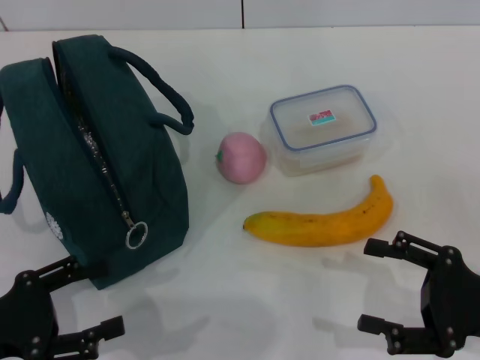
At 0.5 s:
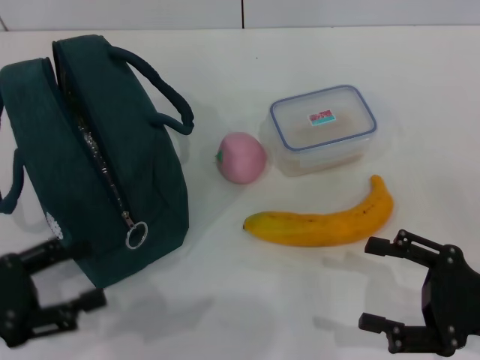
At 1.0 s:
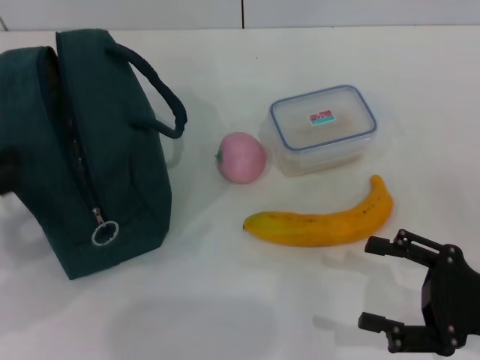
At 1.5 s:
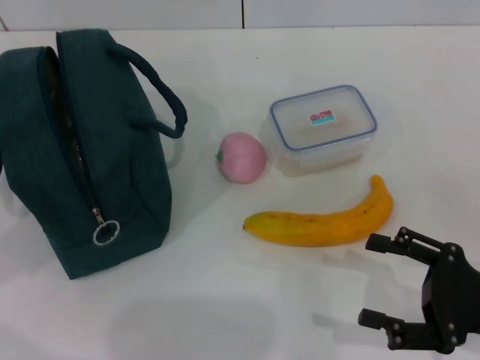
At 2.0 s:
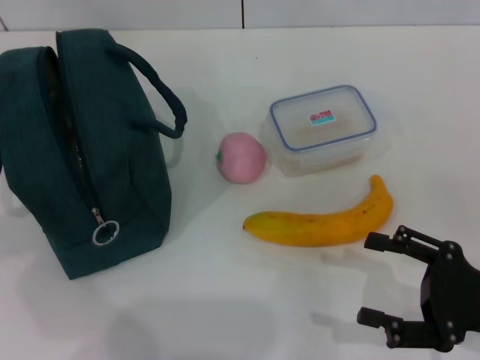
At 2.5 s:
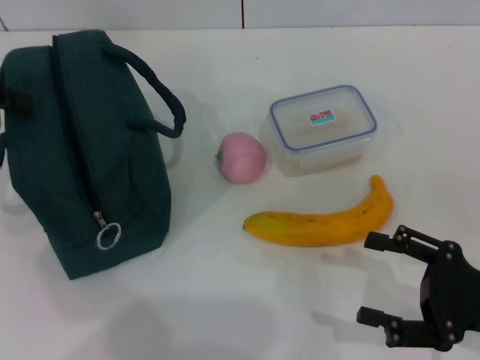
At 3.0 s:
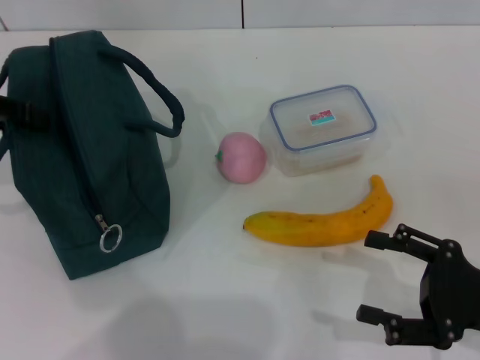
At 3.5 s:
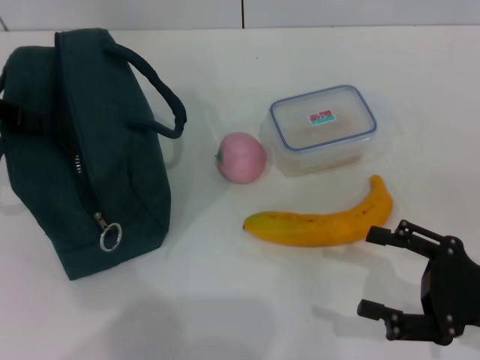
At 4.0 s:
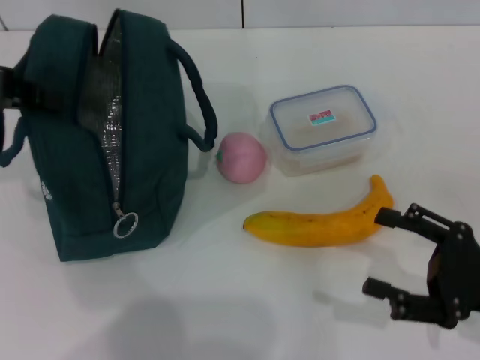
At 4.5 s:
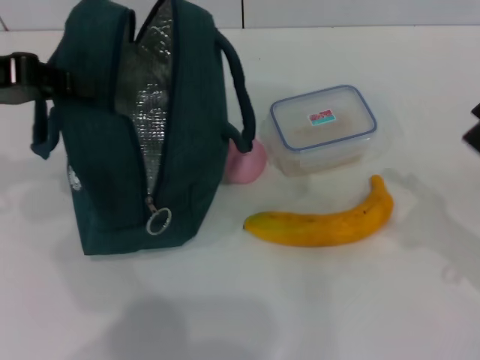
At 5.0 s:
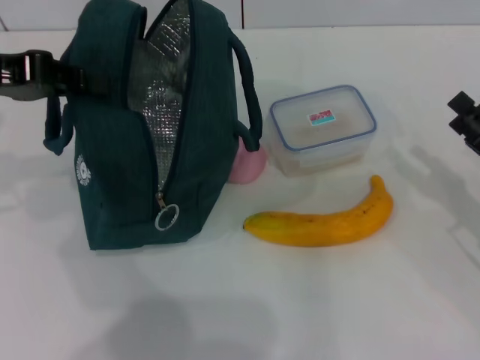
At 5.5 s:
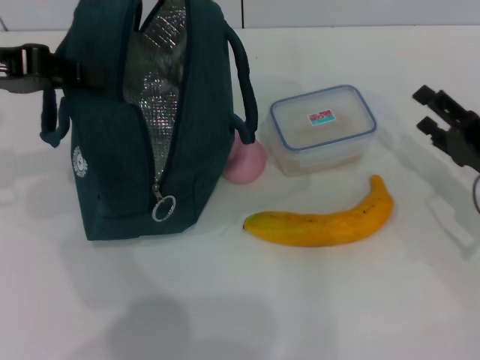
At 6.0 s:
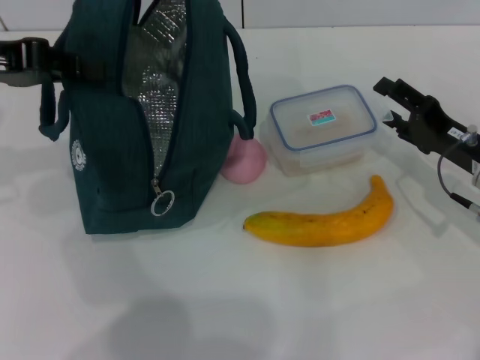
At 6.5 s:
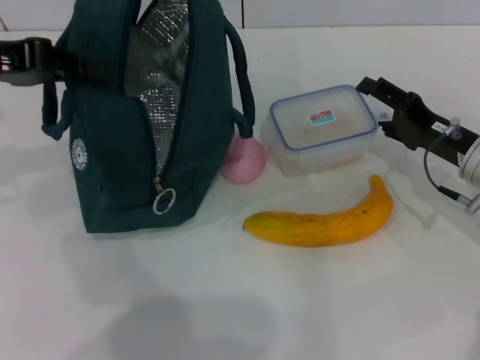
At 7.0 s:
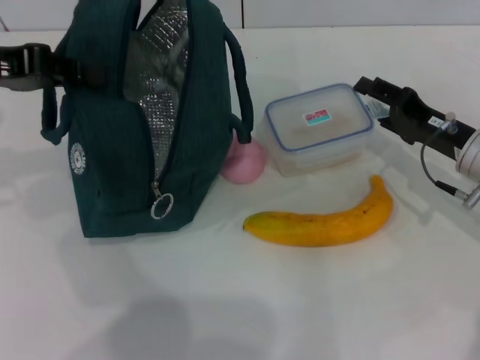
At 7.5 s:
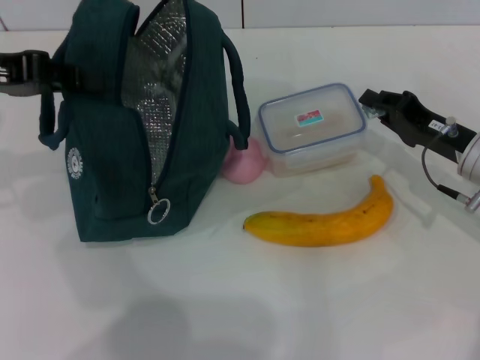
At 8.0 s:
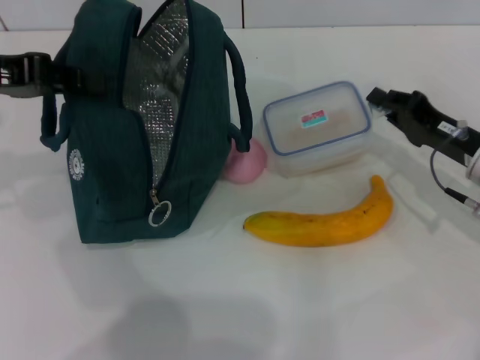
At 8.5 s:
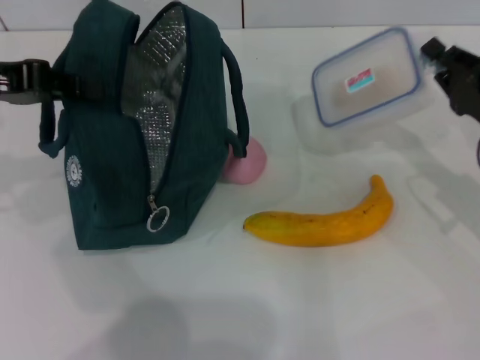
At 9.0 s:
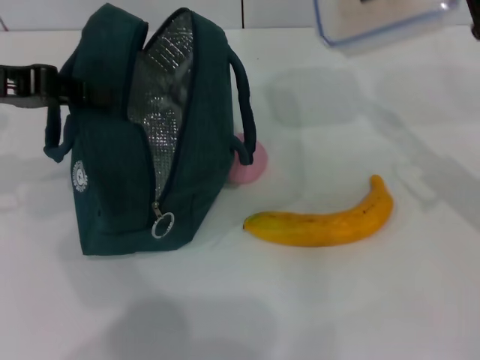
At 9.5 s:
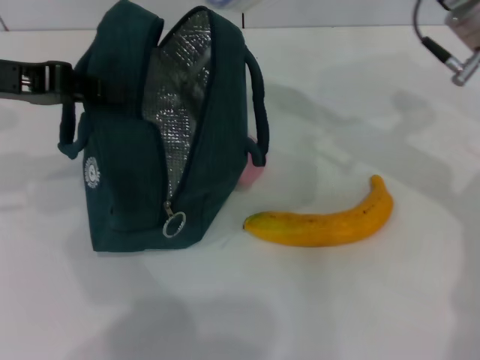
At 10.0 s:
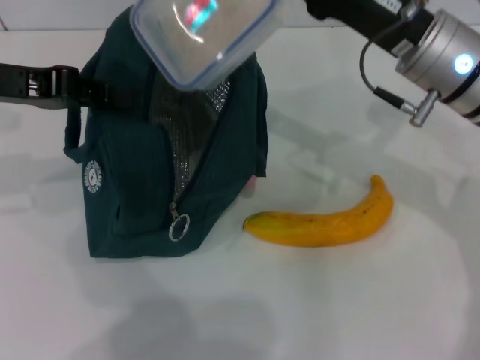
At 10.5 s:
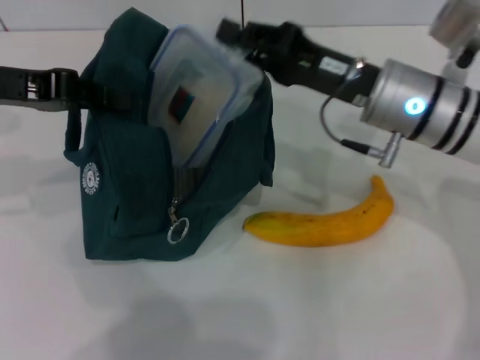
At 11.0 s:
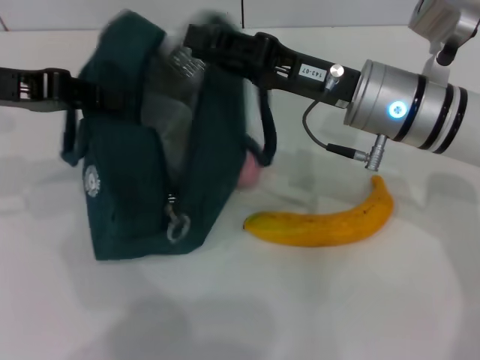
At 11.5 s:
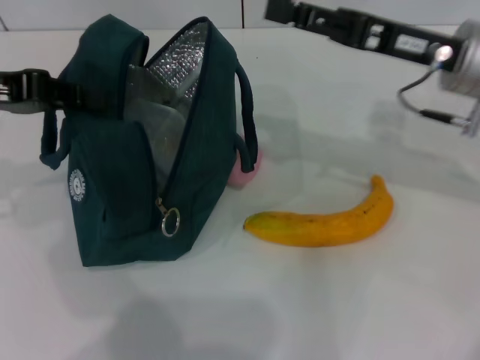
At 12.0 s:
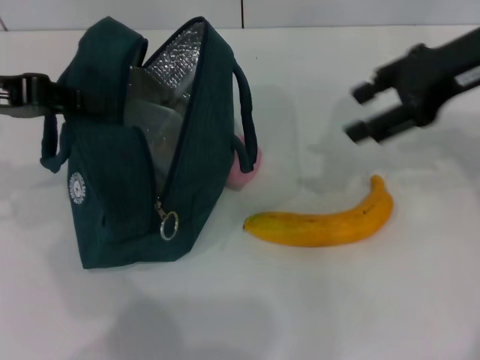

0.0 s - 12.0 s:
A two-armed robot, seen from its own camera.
Step, 0.0 s - 3.0 s: Hold the lunch bag with your left hand.
Step, 3.5 s - 7.5 s: Pick up the lunch box with your right hand.
Step, 8.0 s - 11.0 s: Place the lunch box into the lunch bag with your right hand.
0.0 s - 2.0 s: The left gripper is displaced upward and forward by approximately 25 cm.
2.0 s - 4.0 s: The left gripper travels to the right by about 5 cm, and closes.
4.0 s - 6.0 s: The right gripper travels forward by approximately 15 cm.
6.0 s - 8.0 s: The right gripper closes its fingers.
8.0 s - 10.0 s: The right gripper shifts about 15 cm upward and to the left.
10.0 s - 12.0 s: The right gripper shifts roughly 10 cm upward and to the right, and opens up.

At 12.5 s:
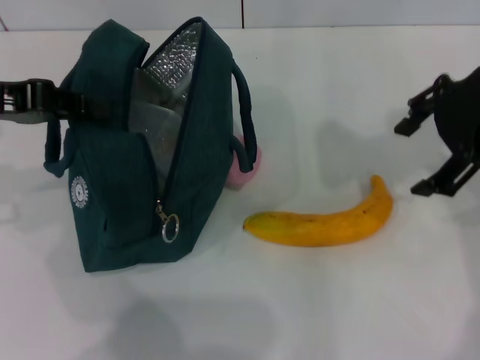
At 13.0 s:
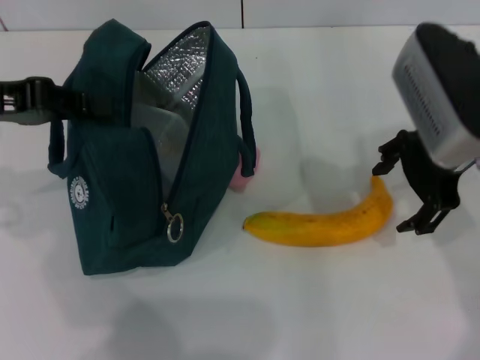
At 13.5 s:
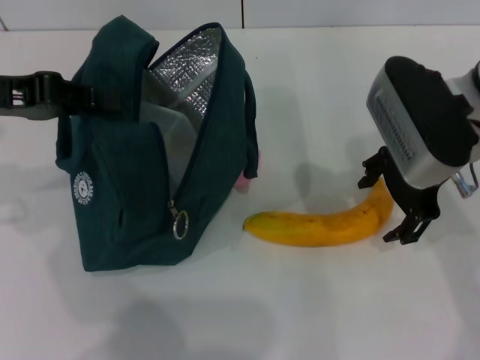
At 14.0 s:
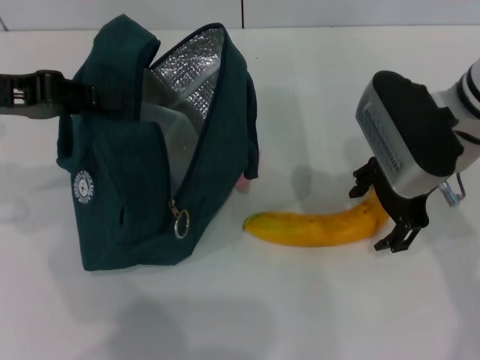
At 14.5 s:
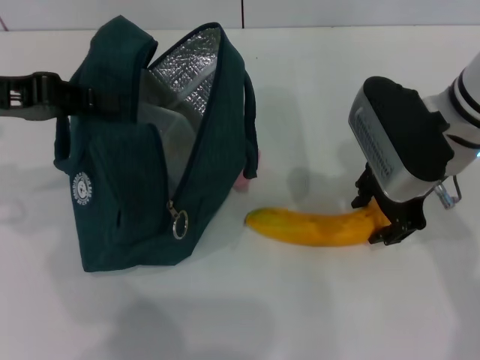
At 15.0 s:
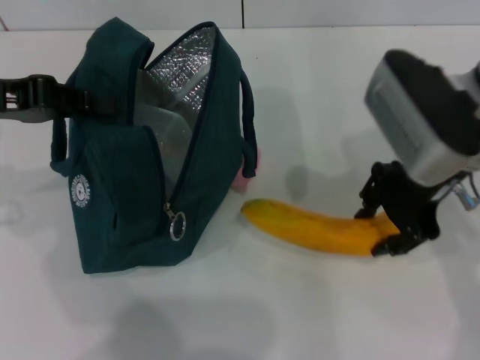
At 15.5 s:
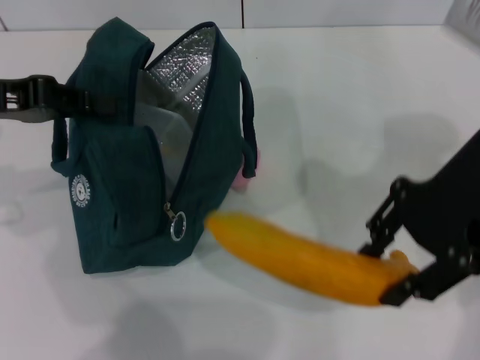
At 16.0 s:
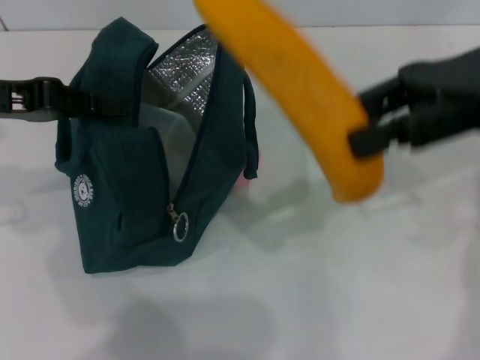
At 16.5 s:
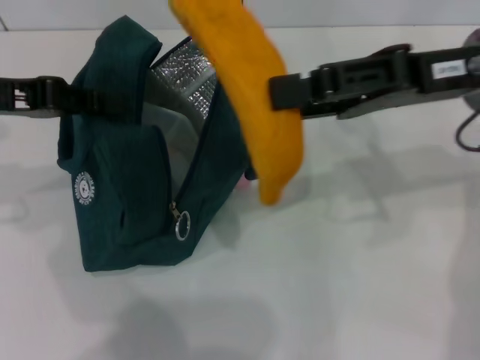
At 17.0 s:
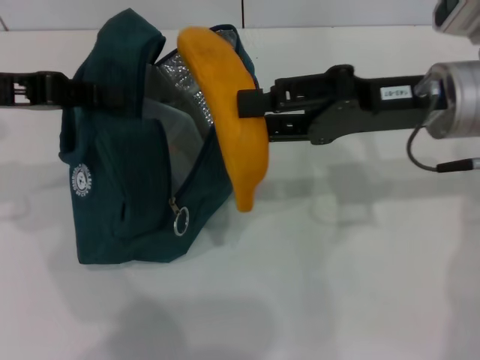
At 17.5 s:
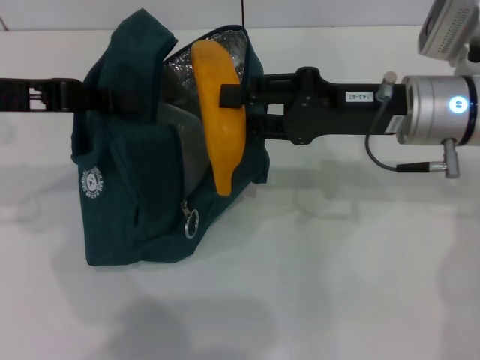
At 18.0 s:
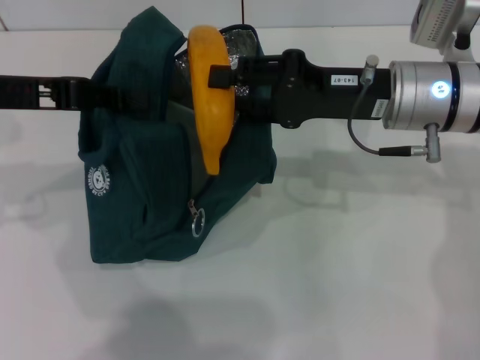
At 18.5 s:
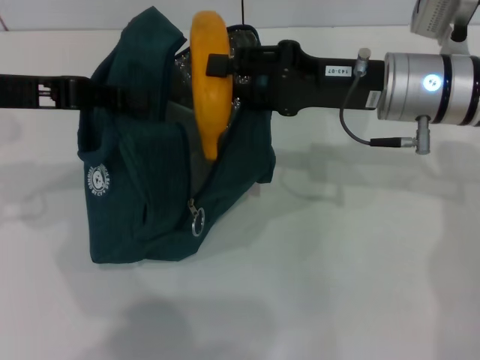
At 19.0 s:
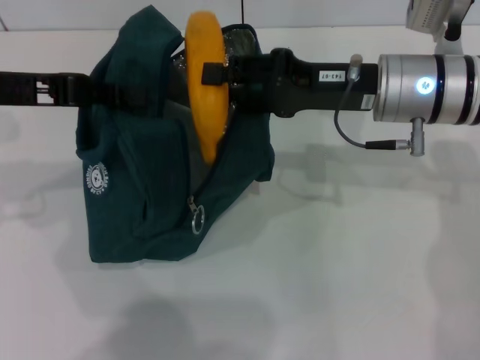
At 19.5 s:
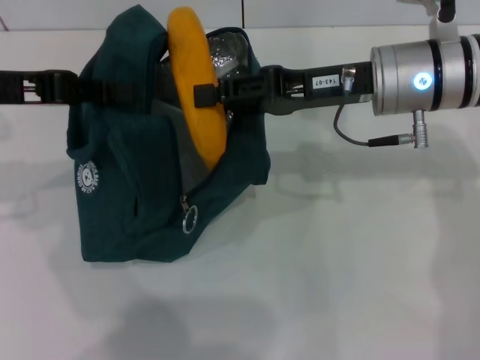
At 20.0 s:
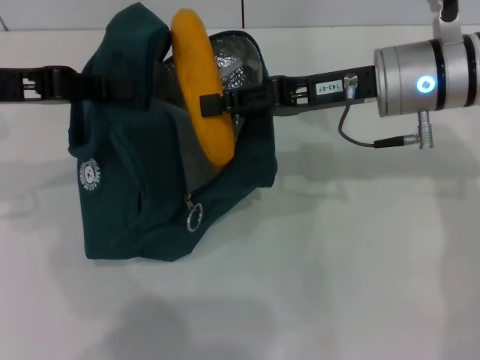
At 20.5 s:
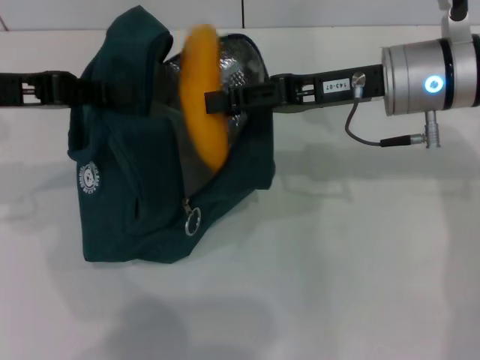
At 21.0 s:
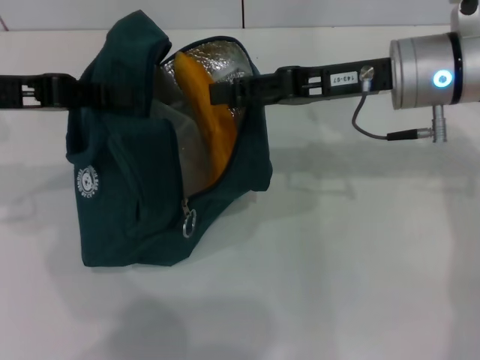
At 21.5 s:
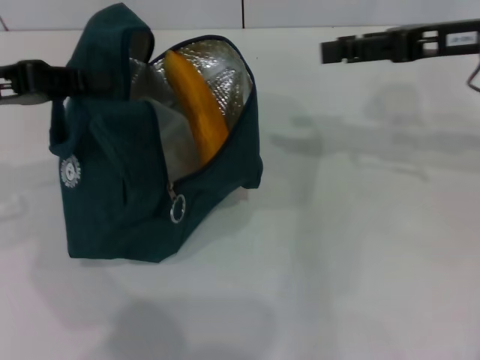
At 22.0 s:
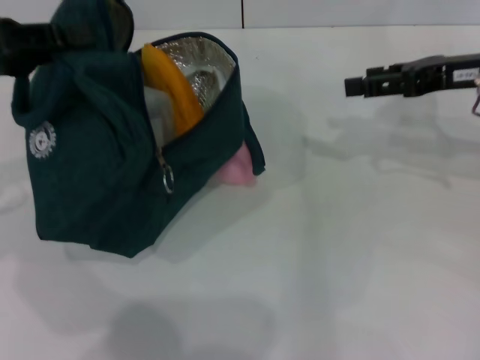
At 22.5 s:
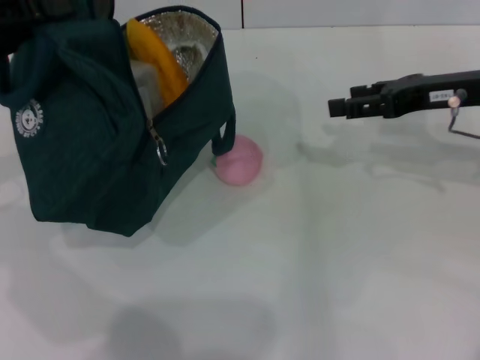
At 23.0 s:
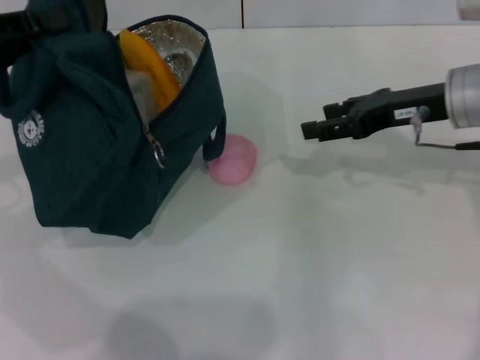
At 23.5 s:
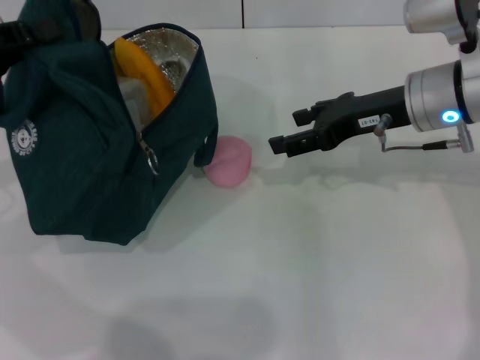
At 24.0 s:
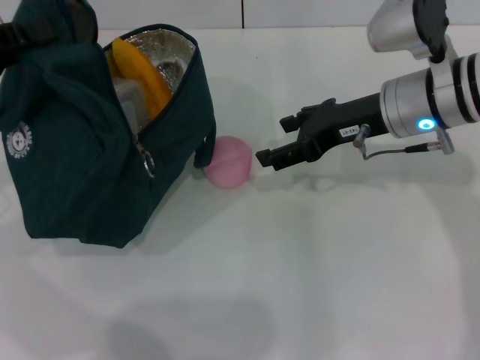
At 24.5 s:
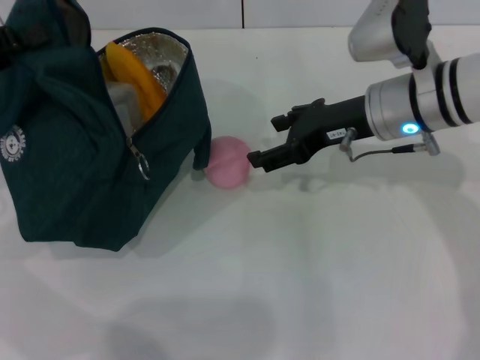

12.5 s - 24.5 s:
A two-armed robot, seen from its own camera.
Step, 12.5 s - 14.5 s: Take the banana with your right hand.
Step, 15.0 s - 20.5 s: Put the banana into the lunch bag with your right hand.
12.5 s - 14.5 s: The right gripper travels downward and to the left by about 10 cm.
14.5 s - 16.5 s: The right gripper travels upward by approximately 5 cm.
16.5 s - 18.5 s: The right gripper goes approximately 5 cm downward.
20.5 s - 22.5 s: The right gripper travels to the right by approximately 10 cm.
22.5 s - 24.5 s: The right gripper is displaced to the left by approximately 10 cm.

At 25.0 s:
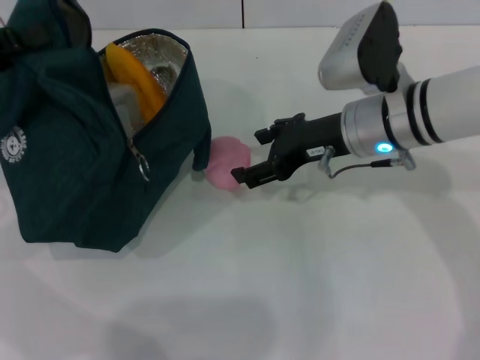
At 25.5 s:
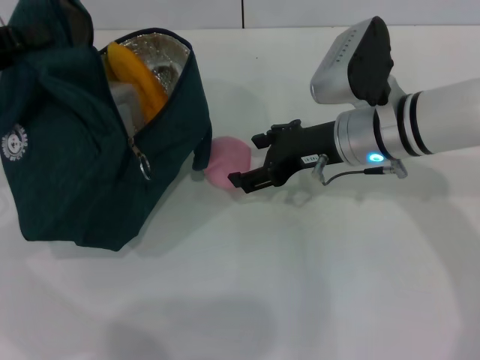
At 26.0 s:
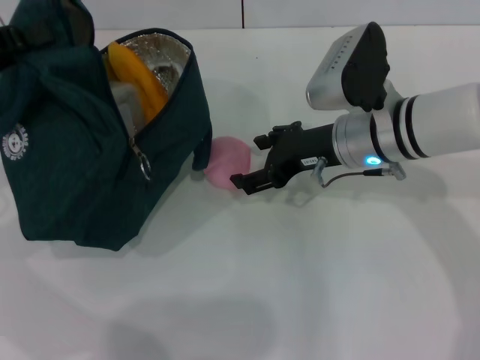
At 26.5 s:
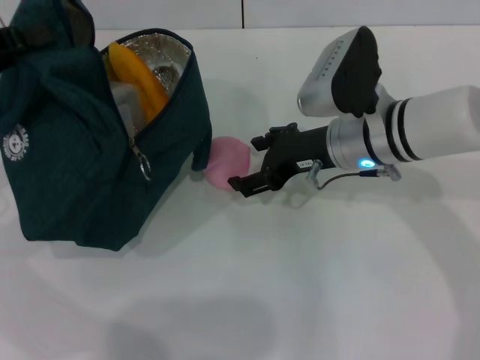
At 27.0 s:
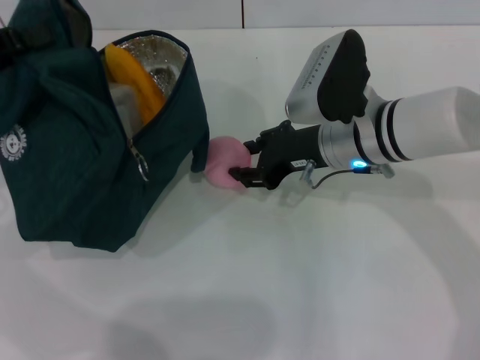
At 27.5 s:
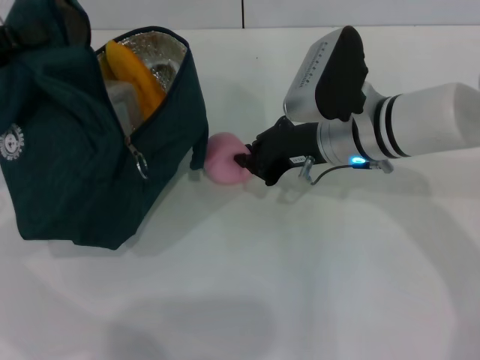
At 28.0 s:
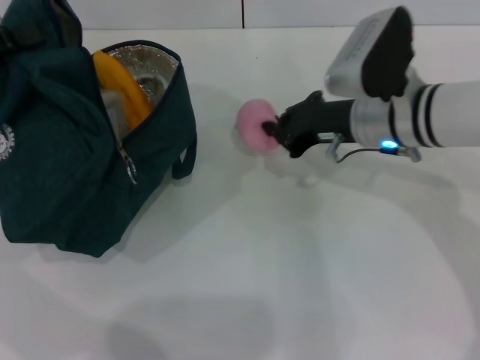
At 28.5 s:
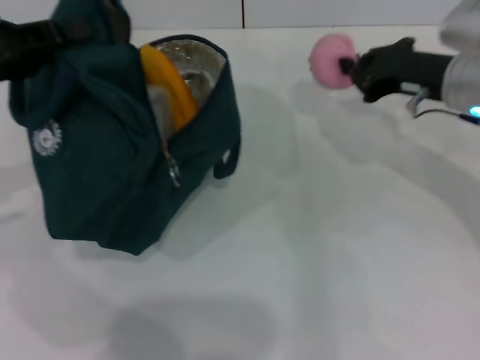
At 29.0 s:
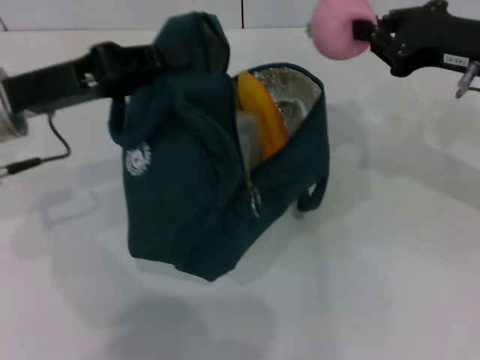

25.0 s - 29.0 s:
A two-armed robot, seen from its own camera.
Step, 25.0 s - 27.0 s: Grab the peach with your right hand.
25.0 s - 27.0 s: The grippers make only small movements.
27.0 s - 29.0 s: The right gripper shifts about 15 cm to the right and upward, and closes. The left gripper moves to the right, about 10 cm.
